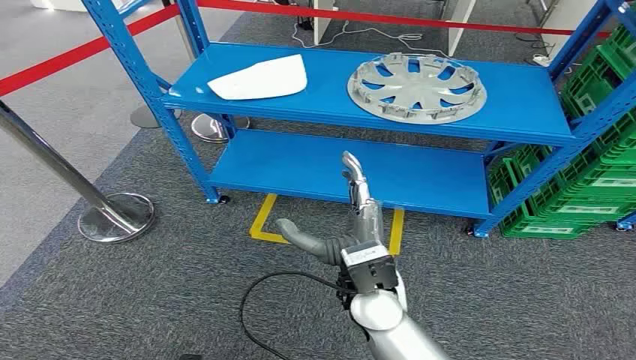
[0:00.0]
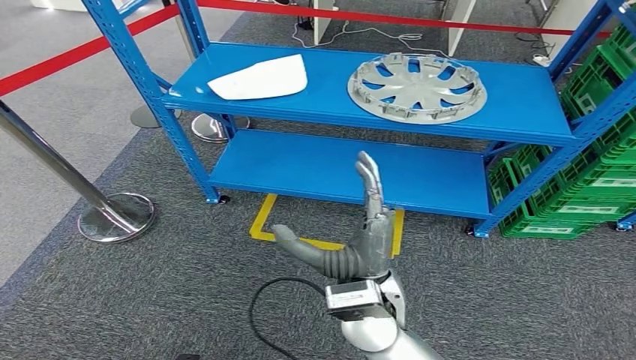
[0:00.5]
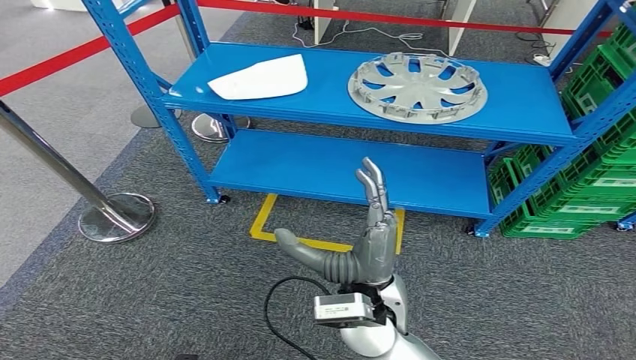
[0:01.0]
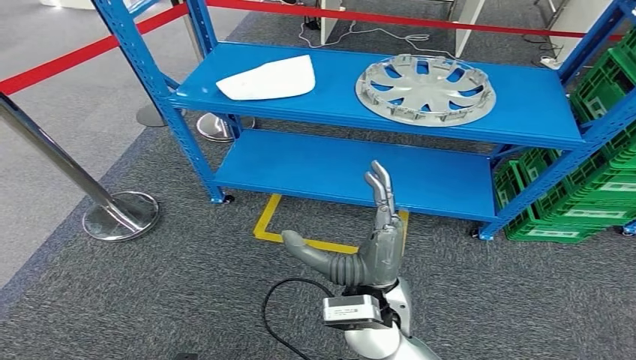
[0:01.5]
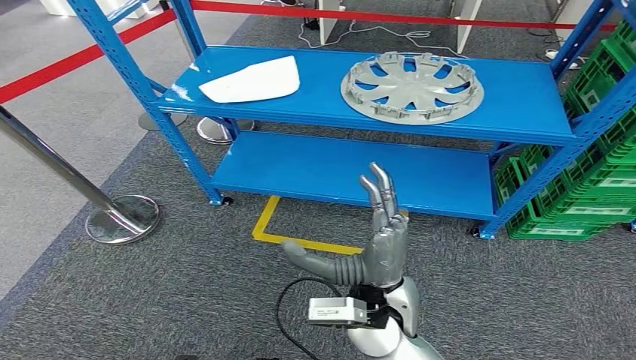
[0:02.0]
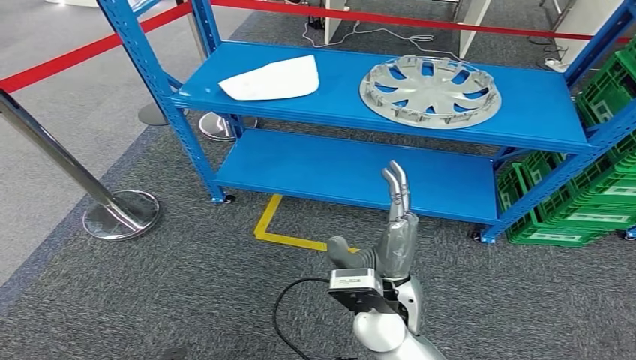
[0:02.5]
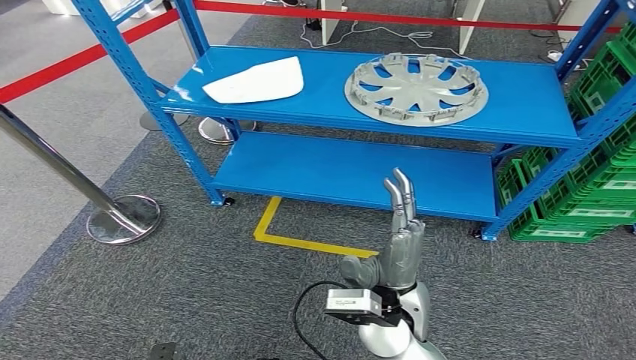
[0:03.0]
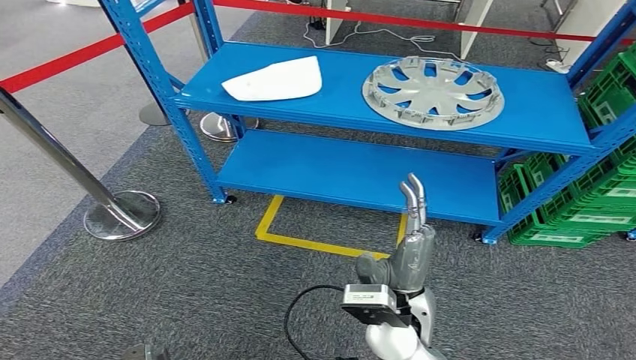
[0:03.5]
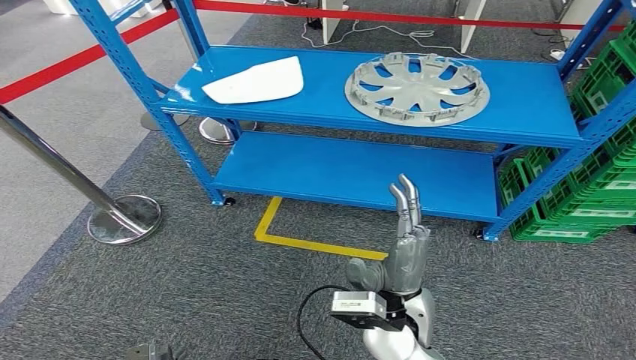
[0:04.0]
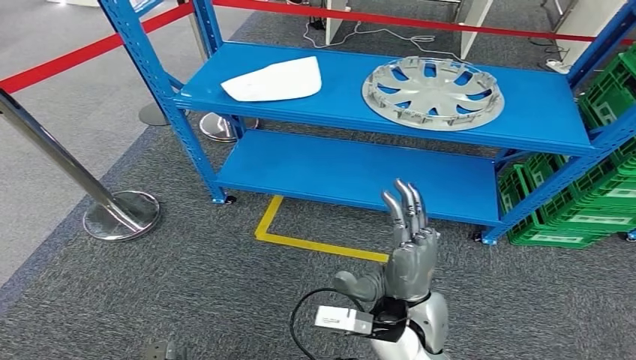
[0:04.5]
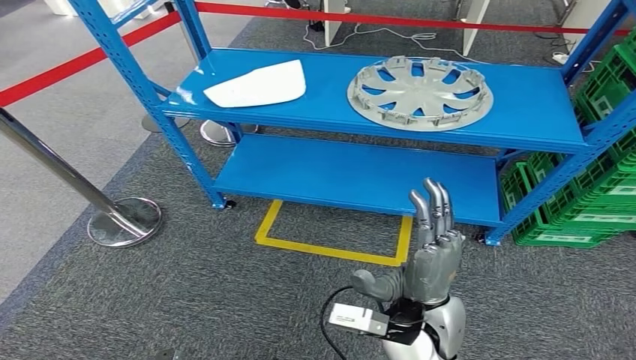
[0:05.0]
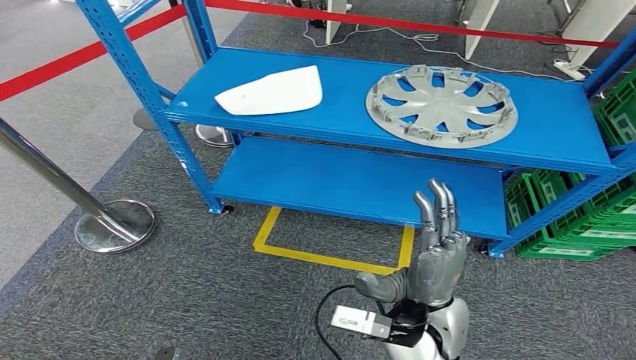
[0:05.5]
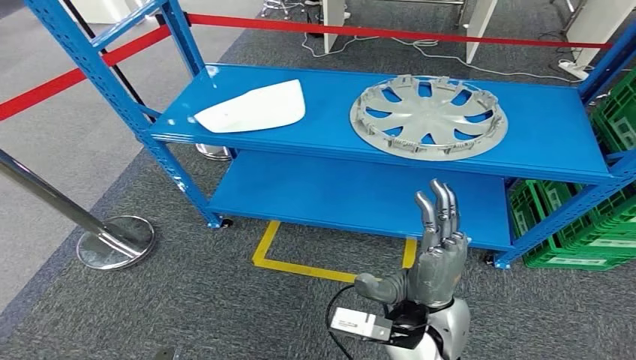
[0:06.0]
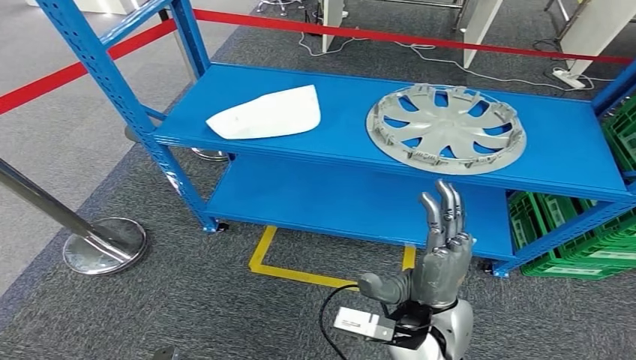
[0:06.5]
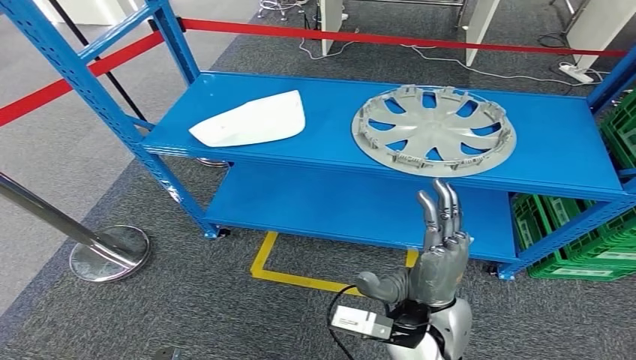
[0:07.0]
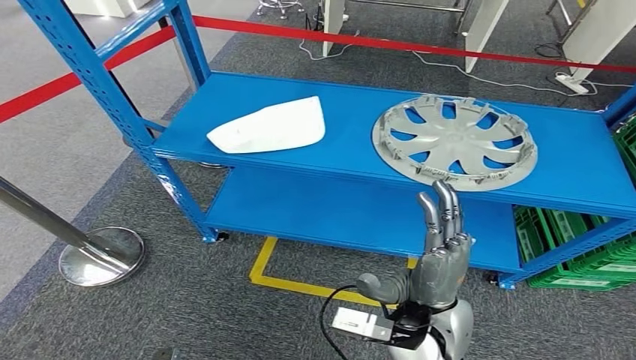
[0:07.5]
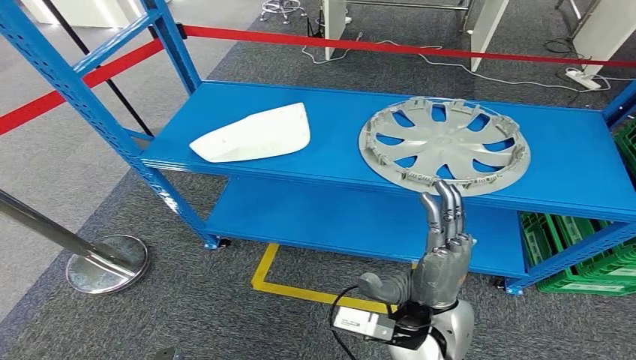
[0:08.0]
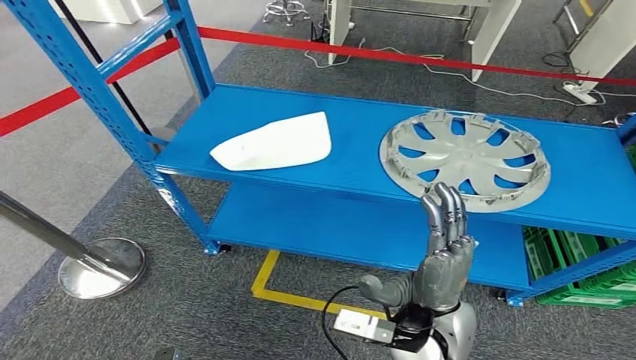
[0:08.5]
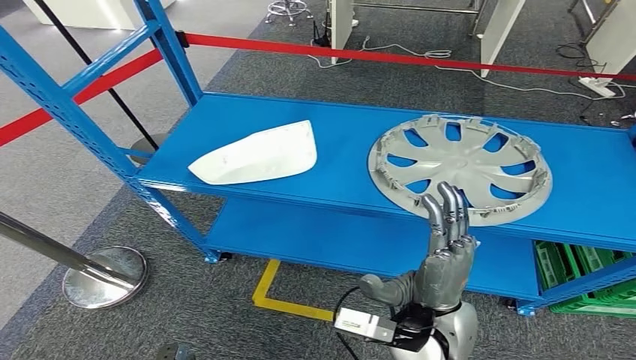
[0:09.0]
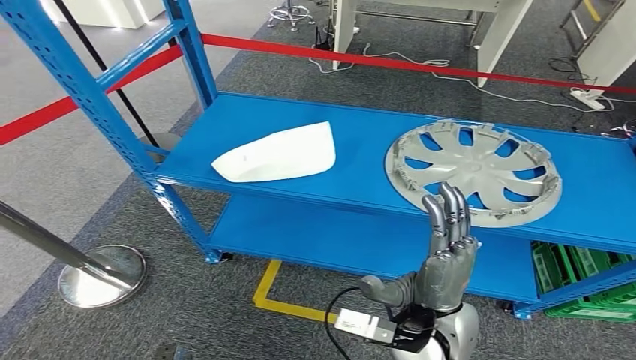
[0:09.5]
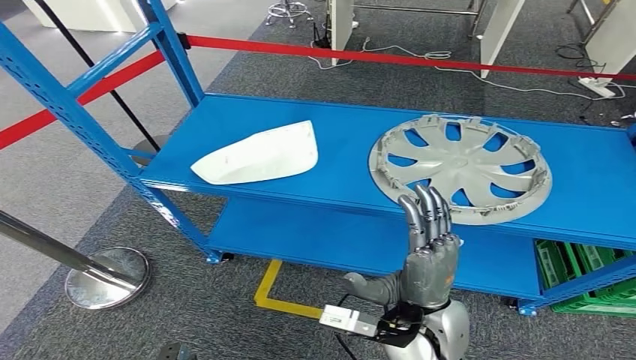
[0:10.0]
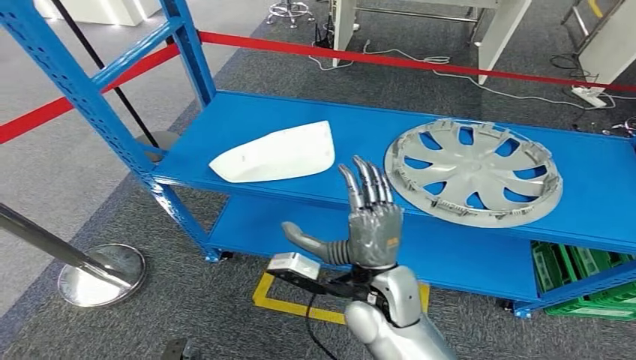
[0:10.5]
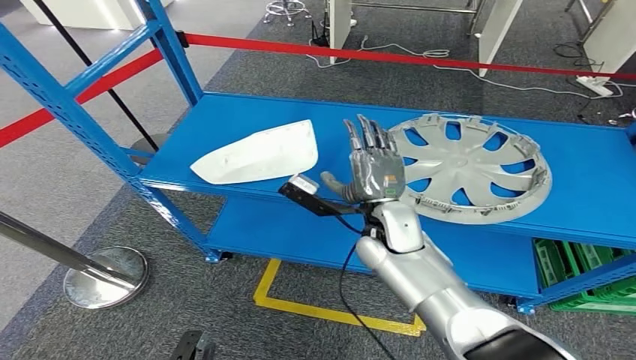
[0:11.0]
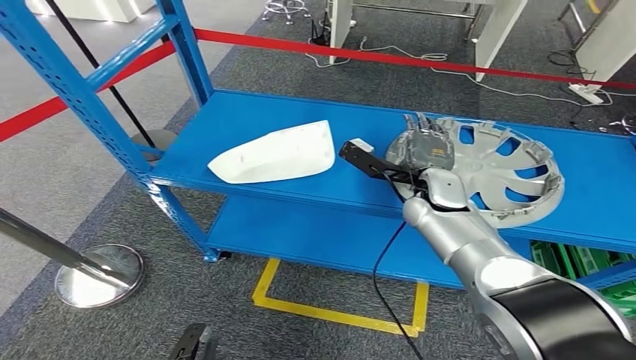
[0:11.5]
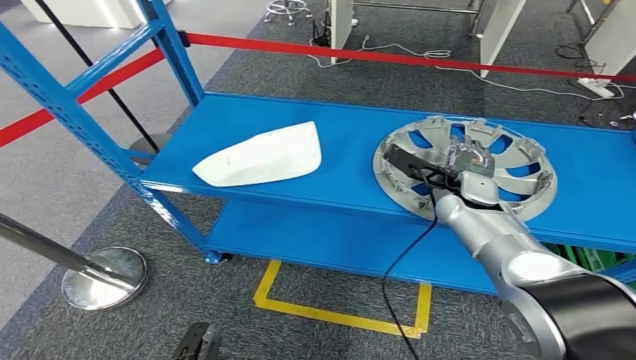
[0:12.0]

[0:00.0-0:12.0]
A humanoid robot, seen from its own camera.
0:10.0 to 0:12.0: The right hand moves forward and to the right, approximately 25 cm.

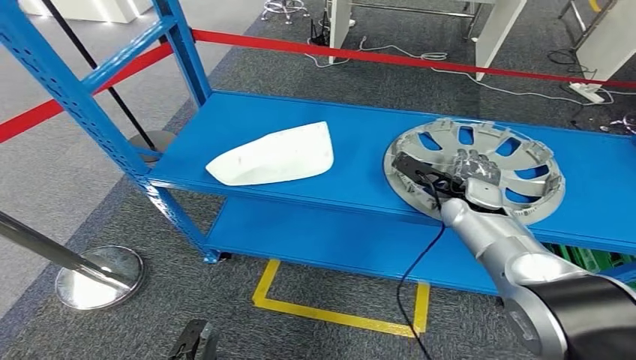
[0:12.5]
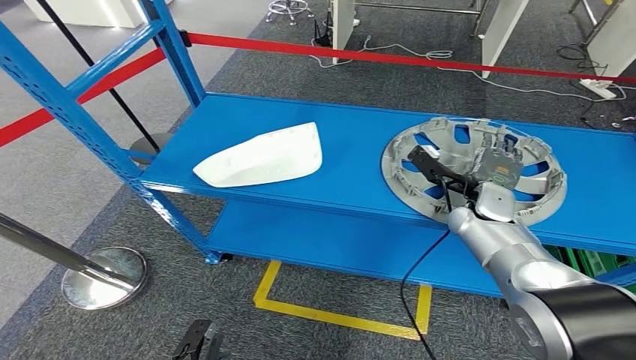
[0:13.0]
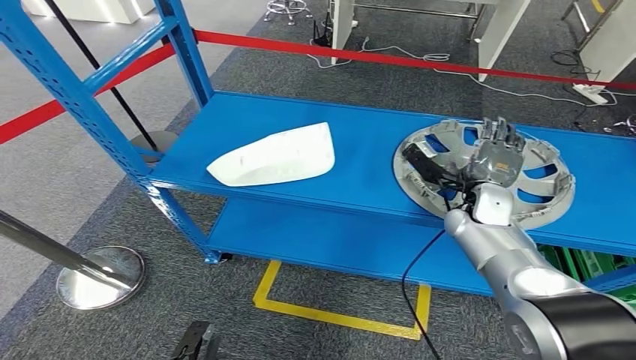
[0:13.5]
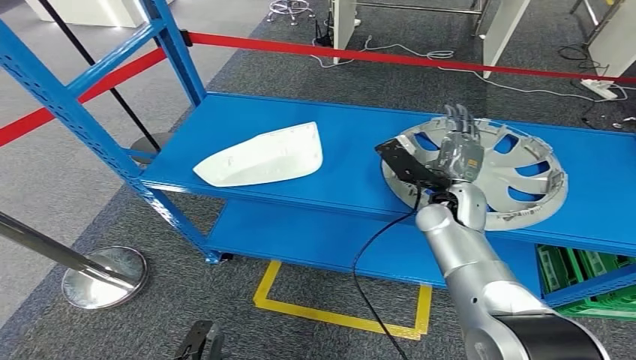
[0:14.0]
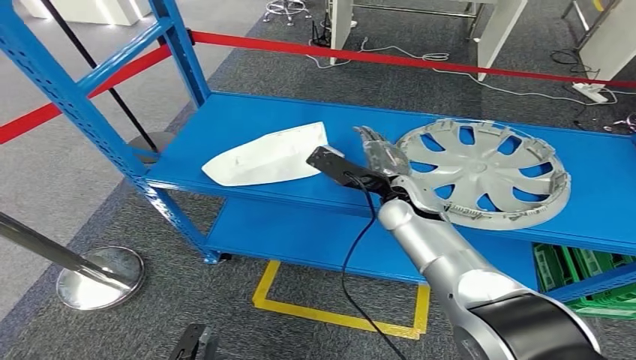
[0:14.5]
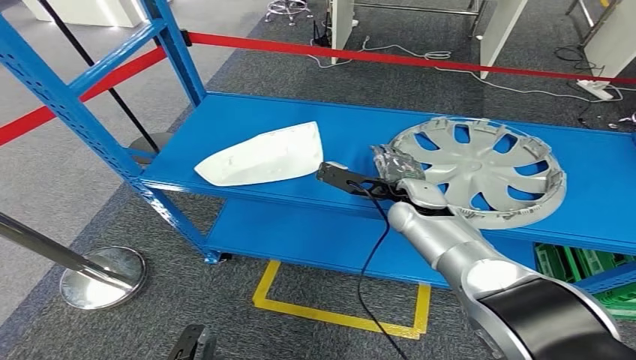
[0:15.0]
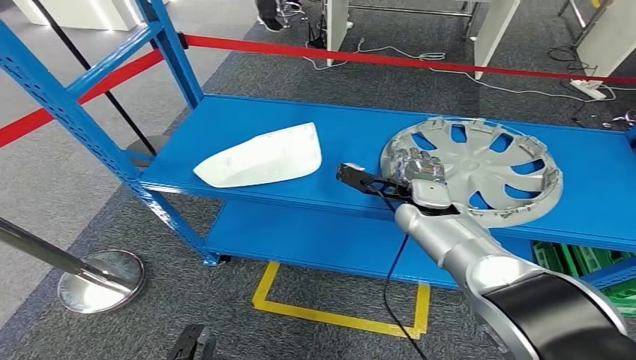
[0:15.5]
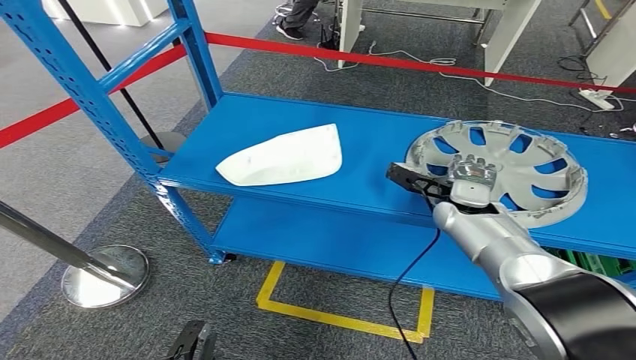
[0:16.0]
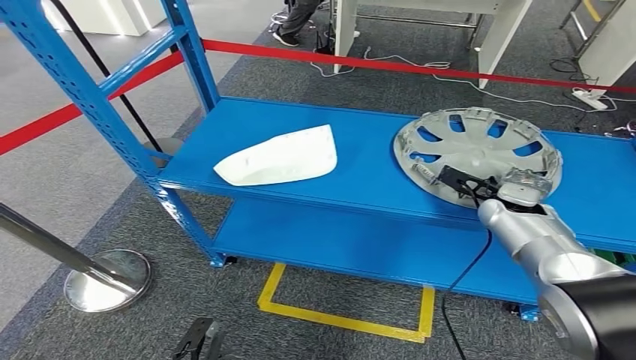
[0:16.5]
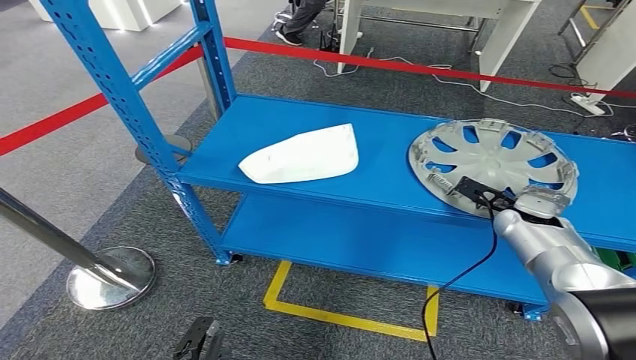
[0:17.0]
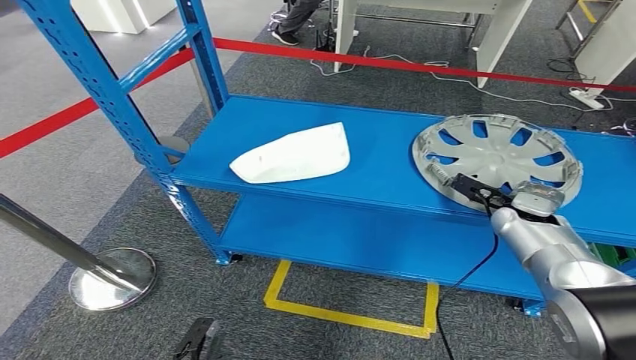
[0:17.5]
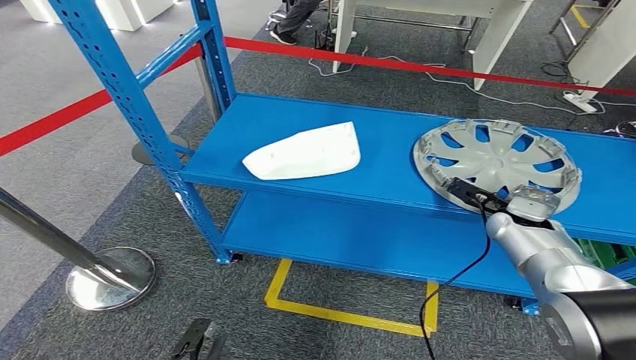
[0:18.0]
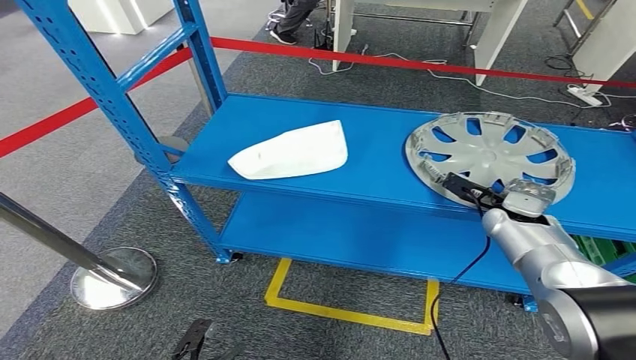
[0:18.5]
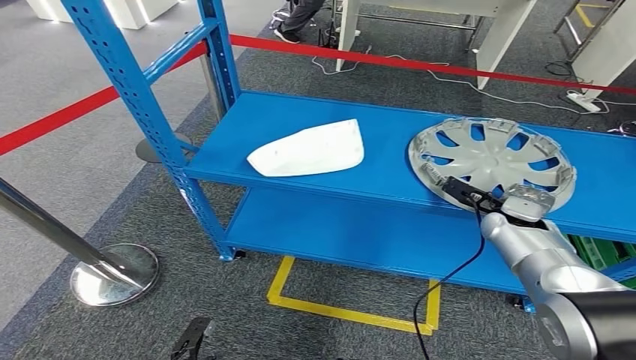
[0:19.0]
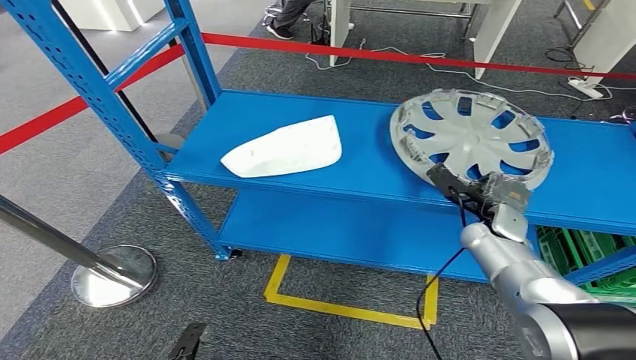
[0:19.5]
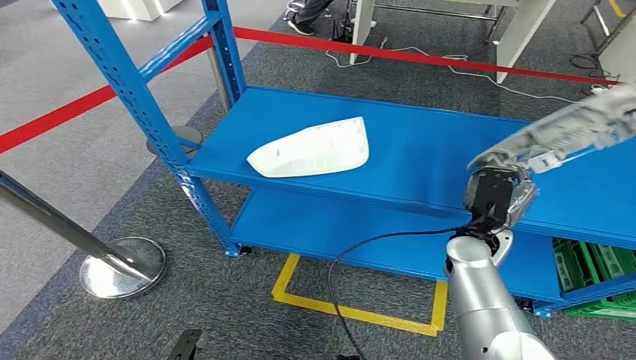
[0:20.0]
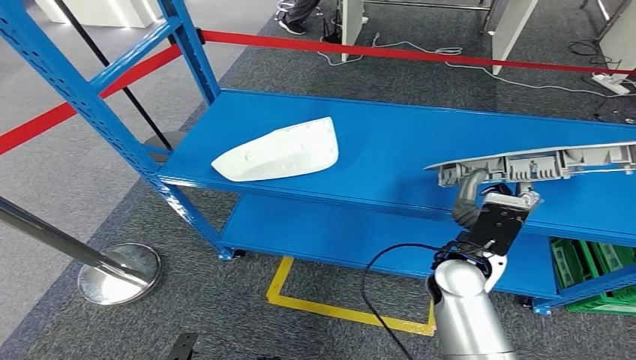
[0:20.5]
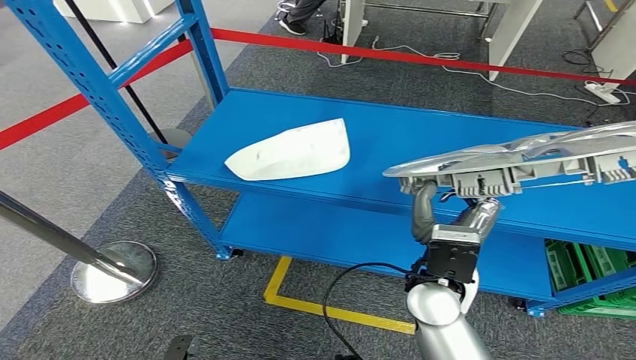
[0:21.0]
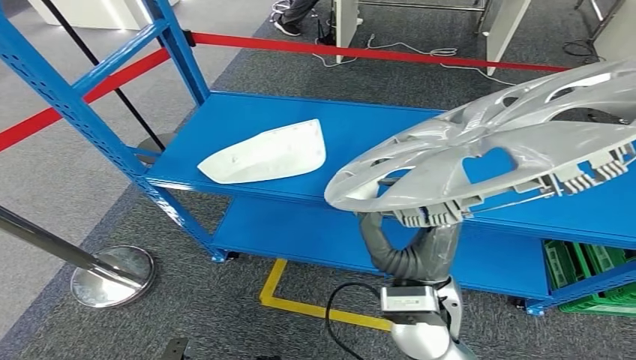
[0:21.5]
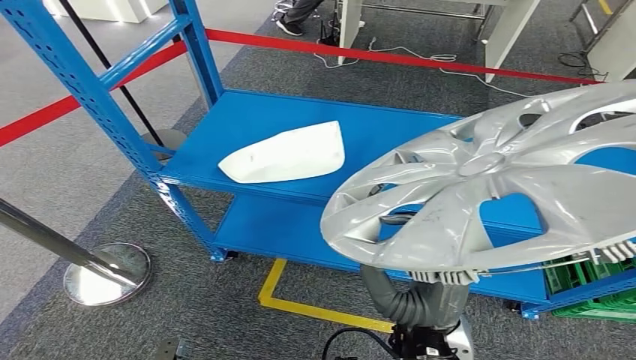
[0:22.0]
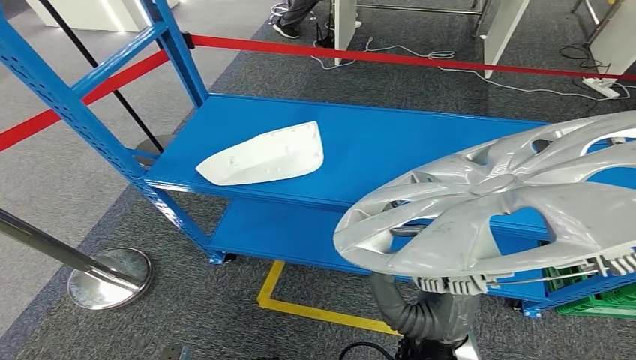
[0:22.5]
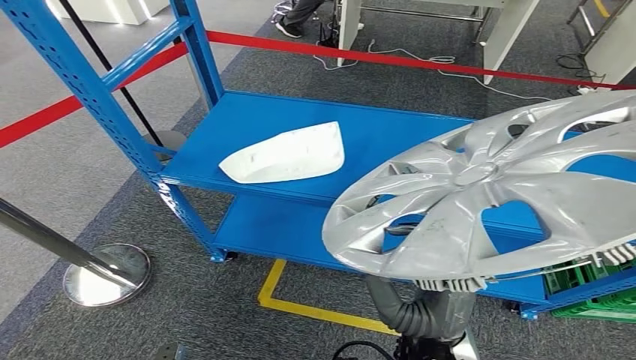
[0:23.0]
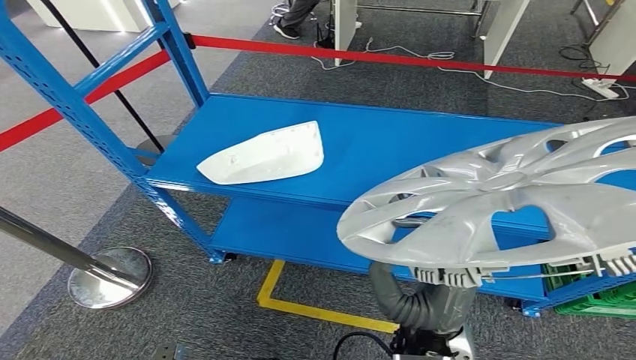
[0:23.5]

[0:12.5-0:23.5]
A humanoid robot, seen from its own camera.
Step, 0:12.5 to 0:22.5: Take small components from the rack.
0:12.5 to 0:14.5: The right hand shifts roughly 10 cm to the left.
